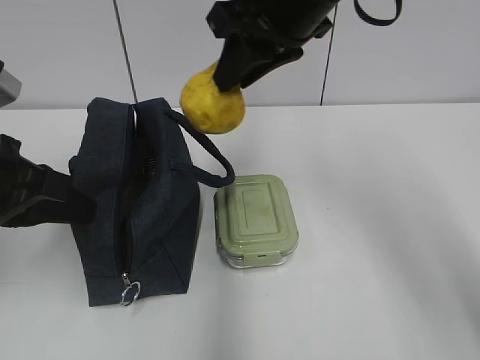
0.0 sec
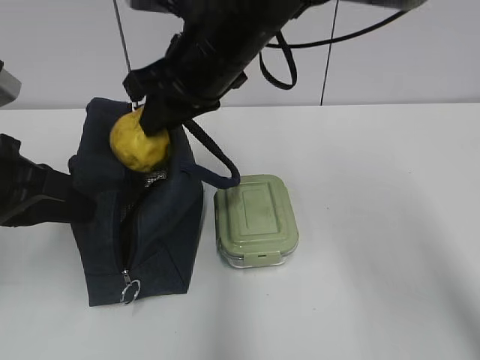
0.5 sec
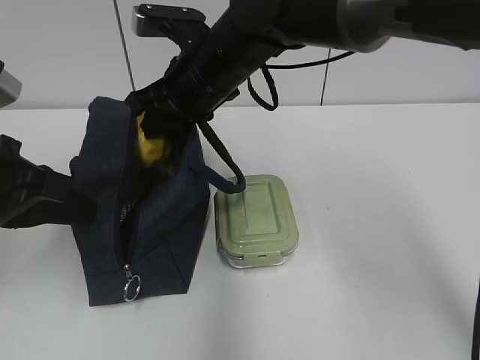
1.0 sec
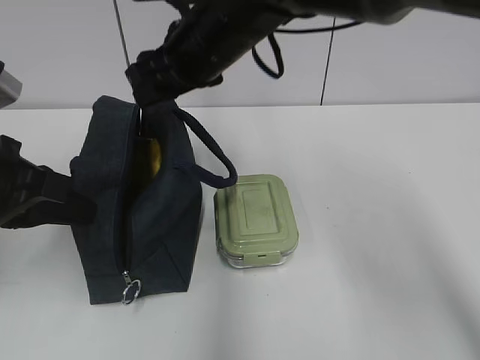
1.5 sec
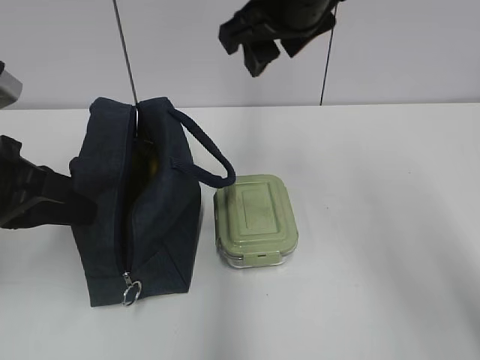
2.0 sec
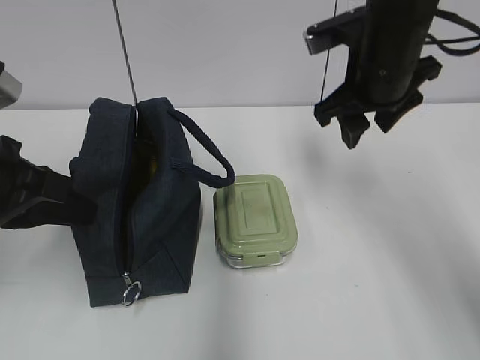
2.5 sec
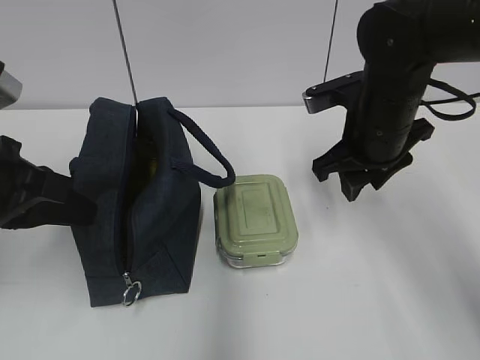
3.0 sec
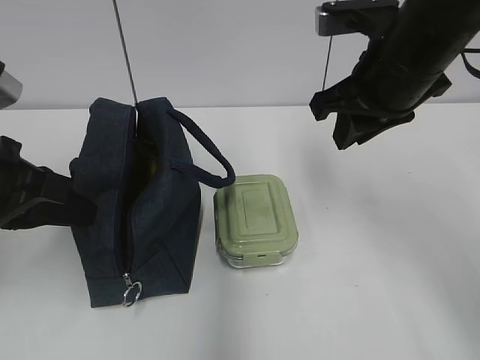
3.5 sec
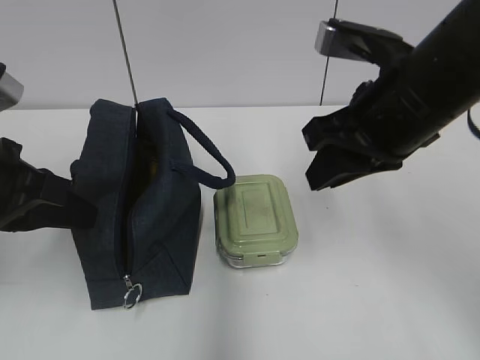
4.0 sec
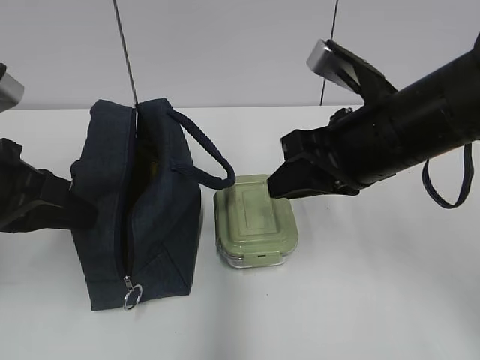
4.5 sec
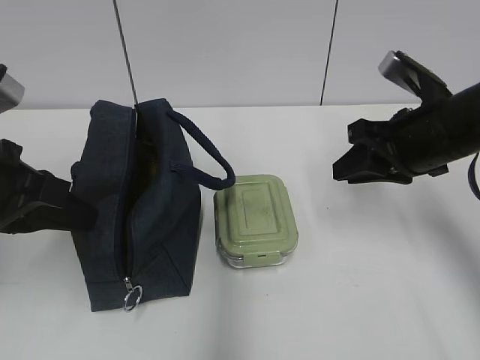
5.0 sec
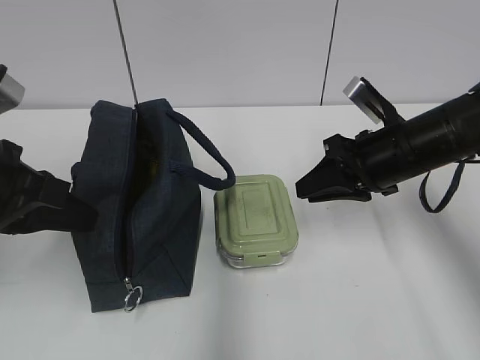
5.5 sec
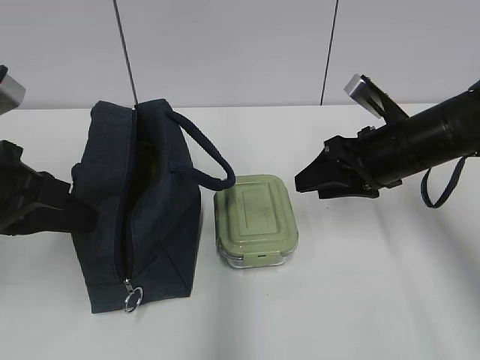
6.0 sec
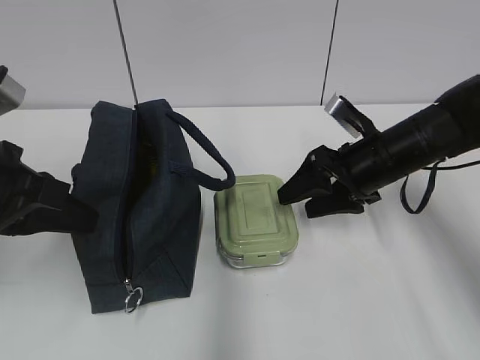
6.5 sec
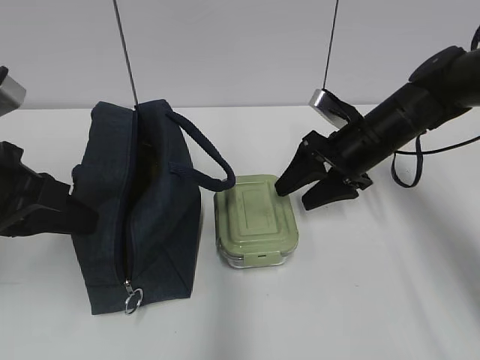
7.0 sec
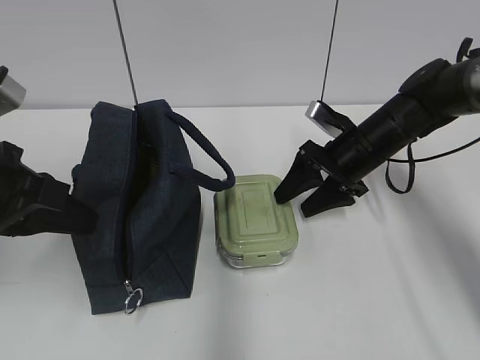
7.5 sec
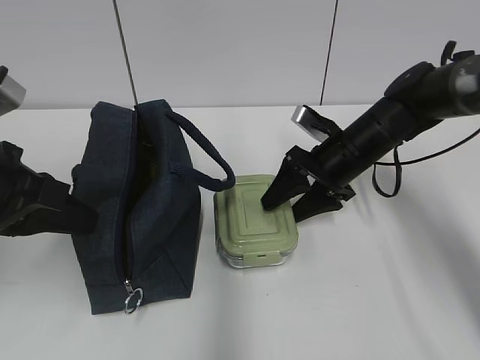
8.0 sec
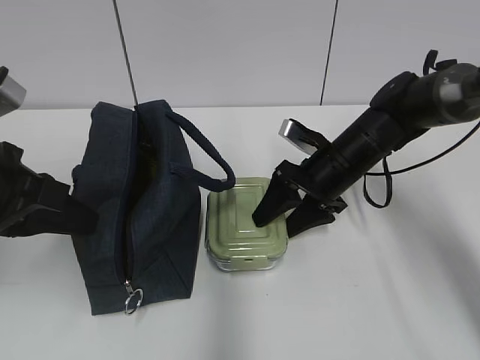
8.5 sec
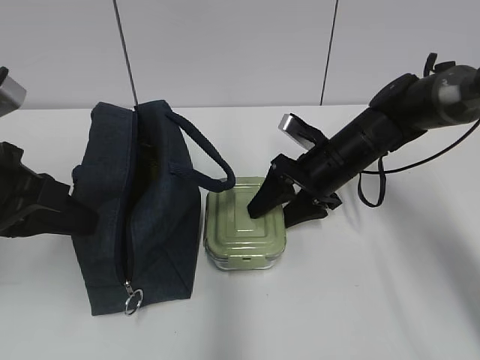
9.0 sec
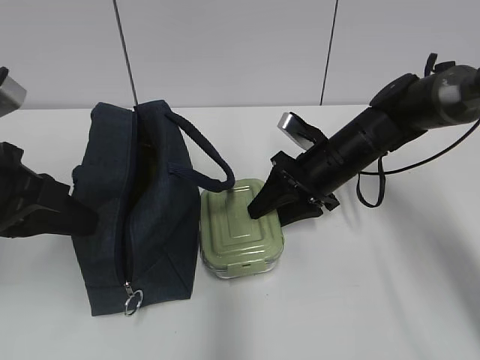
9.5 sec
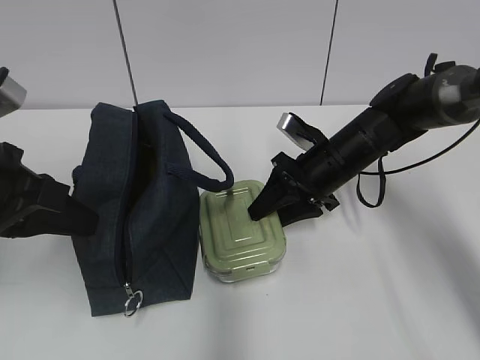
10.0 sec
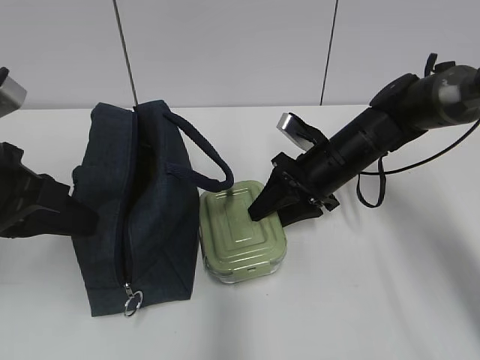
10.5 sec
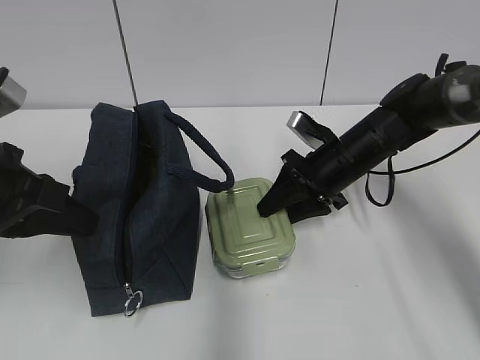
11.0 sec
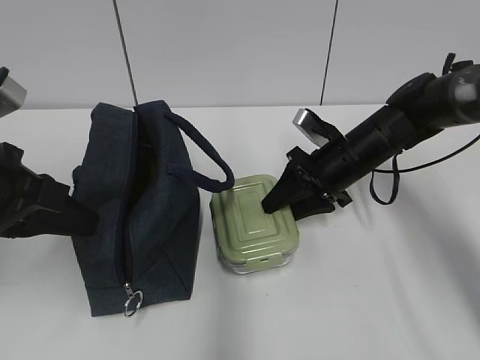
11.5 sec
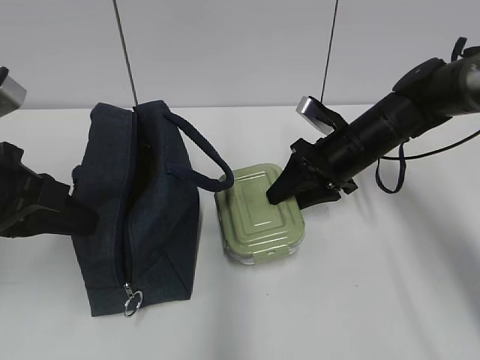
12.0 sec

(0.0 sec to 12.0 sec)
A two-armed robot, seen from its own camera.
0.0 sec - 2.0 sec: The right gripper reaches roughly 10 cm downward, then returns, and opens its fingers.
2.0 sec - 4.0 sec: The right gripper shifts approximately 15 cm backward, downward and to the right, and closes up.
4.0 sec - 6.0 sec: The right gripper is displaced downward, forward and to the right by about 15 cm, and opens.
6.0 sec - 8.0 sec: The right gripper is displaced forward and downward by about 10 cm.
8.0 sec - 12.0 sec: There are only small adjustments of the grippers.

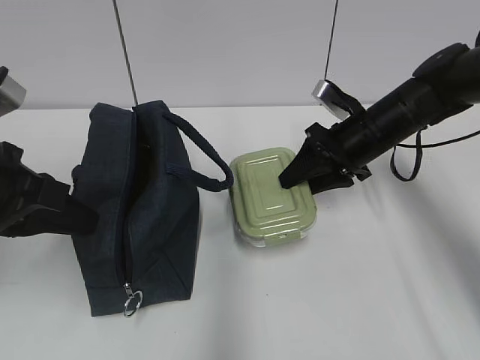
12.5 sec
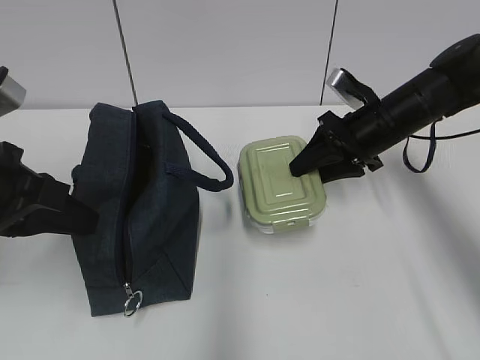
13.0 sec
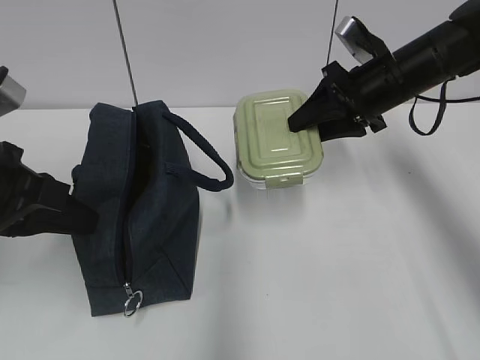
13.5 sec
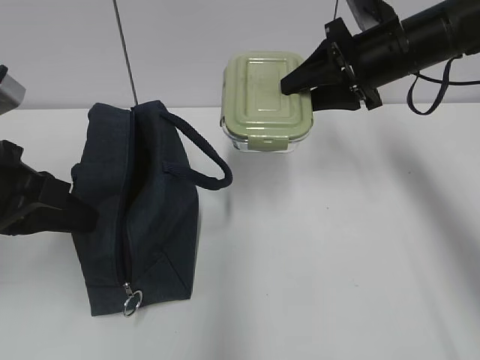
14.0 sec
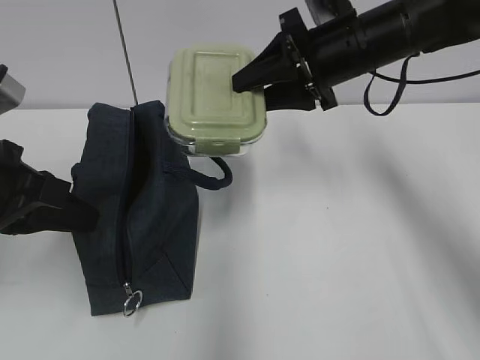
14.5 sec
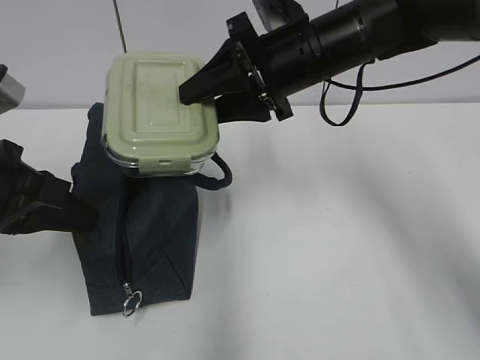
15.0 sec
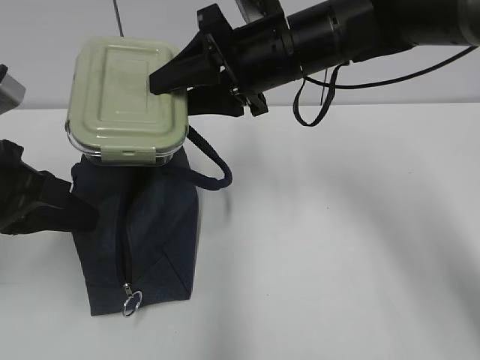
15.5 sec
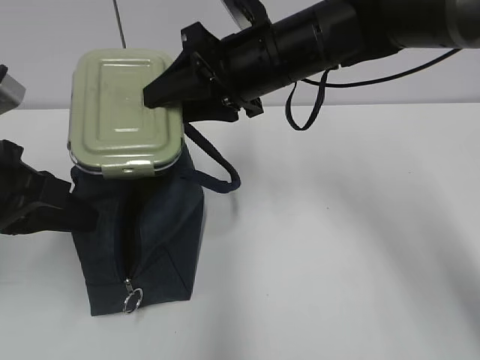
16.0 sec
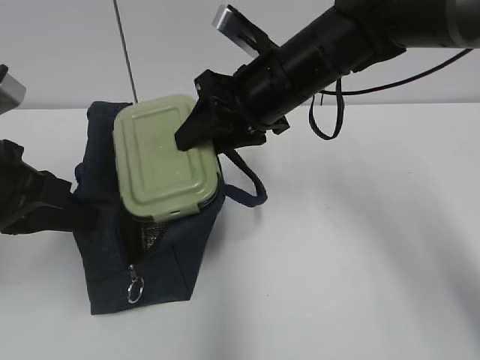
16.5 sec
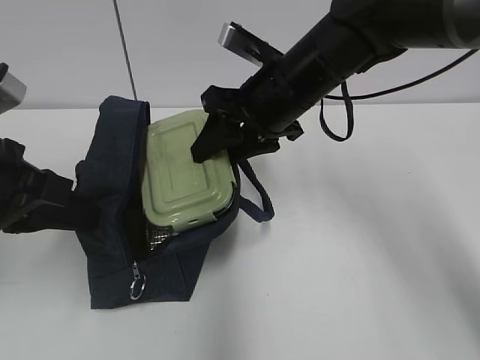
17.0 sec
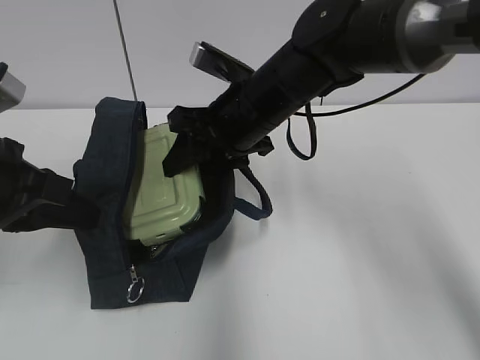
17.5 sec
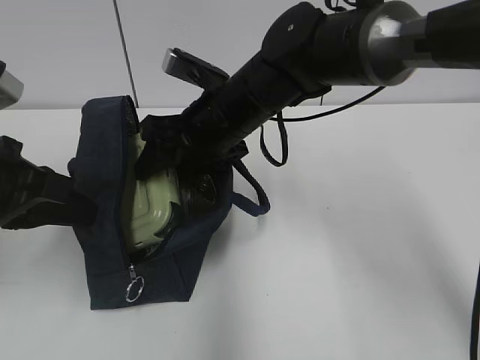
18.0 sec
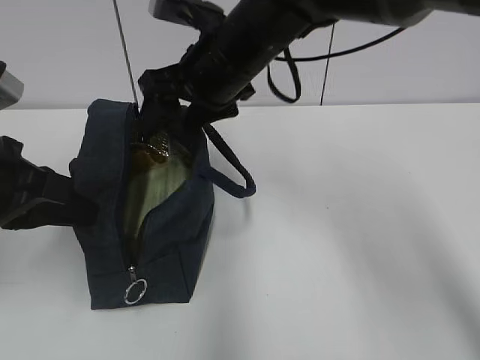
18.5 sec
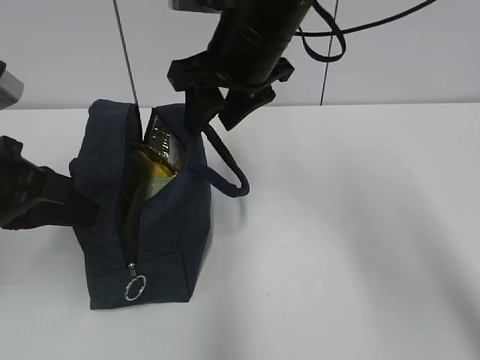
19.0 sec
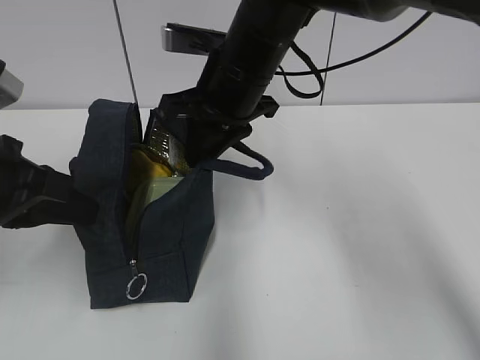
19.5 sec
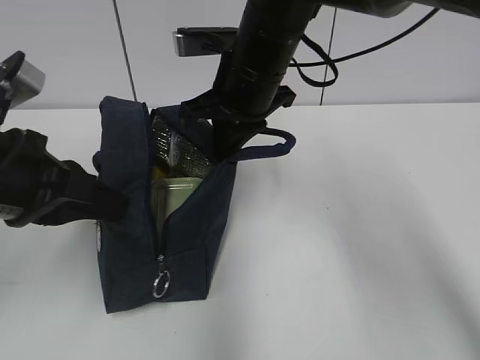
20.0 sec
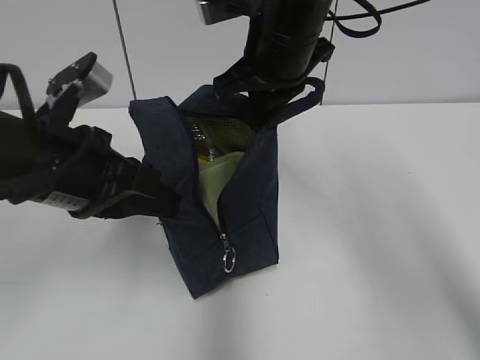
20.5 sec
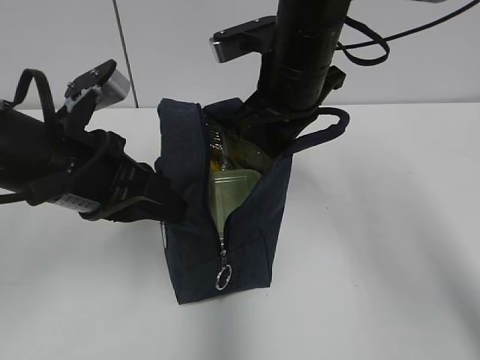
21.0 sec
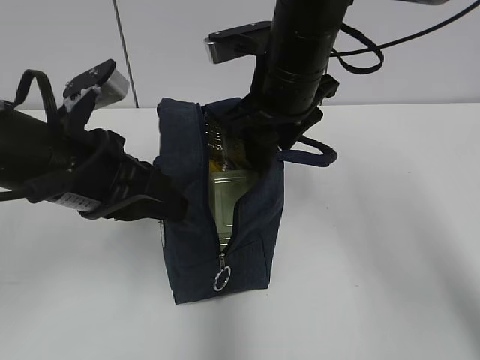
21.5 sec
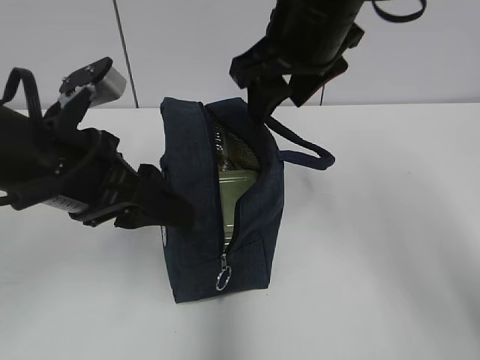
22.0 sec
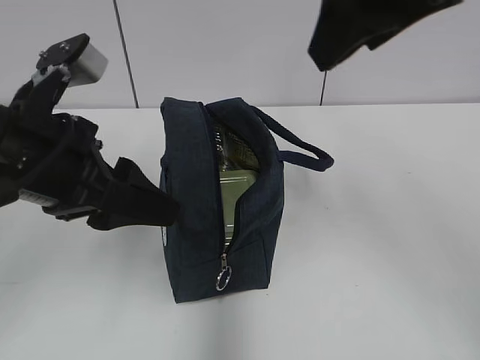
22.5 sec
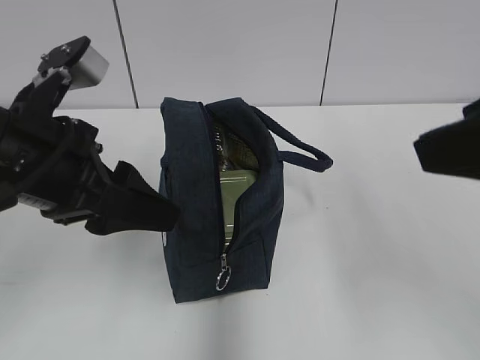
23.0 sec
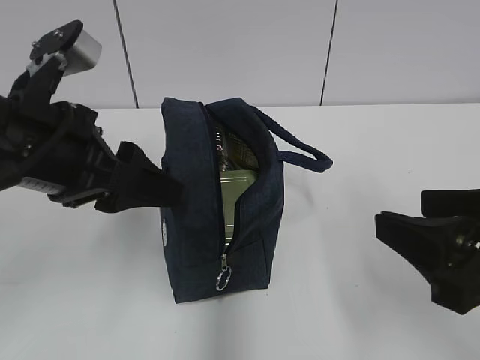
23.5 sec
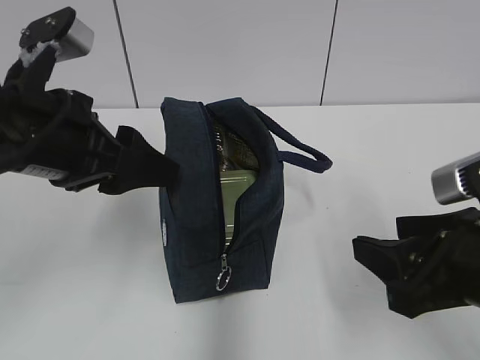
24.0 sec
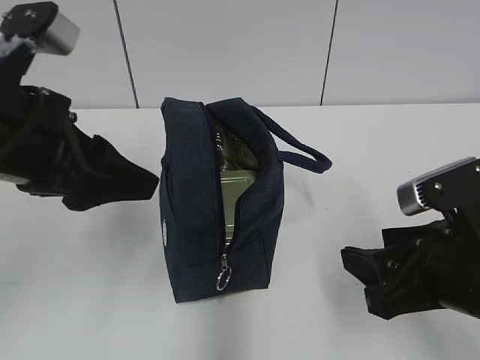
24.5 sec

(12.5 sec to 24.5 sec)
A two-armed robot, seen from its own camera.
12.5 sec - 14.5 sec: The right gripper shifts about 15 cm upward and to the left.
14.5 sec - 16.5 sec: The right gripper shifts about 10 cm to the left.
16.5 sec - 18.5 sec: The right gripper shifts by about 5 cm, and opens.
18.5 sec - 20.5 sec: The right gripper shifts by roughly 5 cm, and closes up; the left gripper is displaced to the right by roughly 5 cm.
20.5 sec - 22.5 sec: The right gripper heads backward, upward and to the right, covering roughly 20 cm, and opens; the left gripper opens up.
22.5 sec - 24.5 sec: The right gripper is displaced downward by about 25 cm.

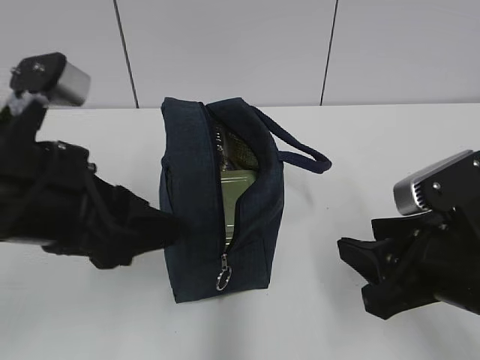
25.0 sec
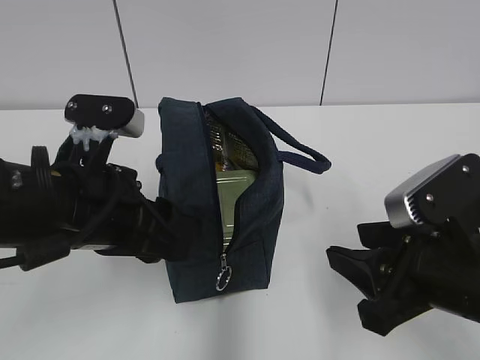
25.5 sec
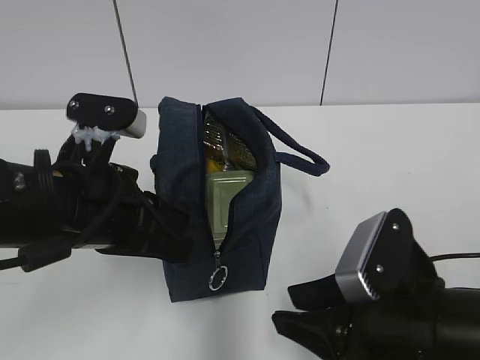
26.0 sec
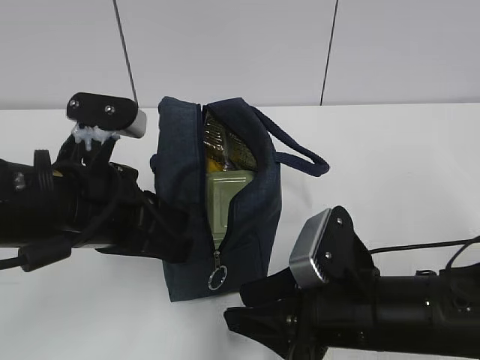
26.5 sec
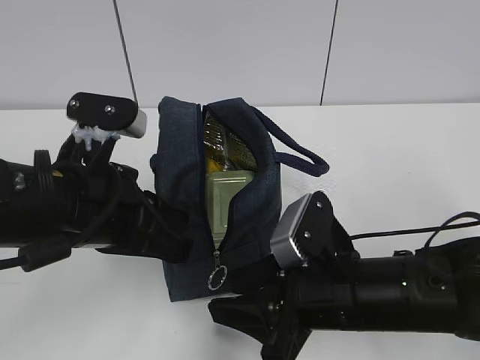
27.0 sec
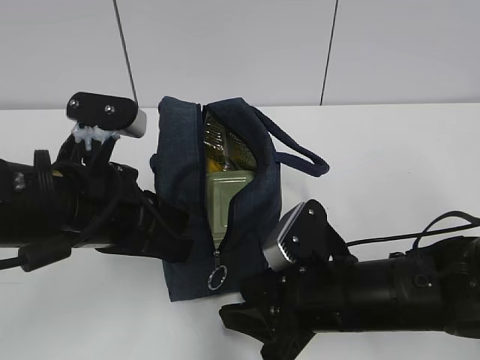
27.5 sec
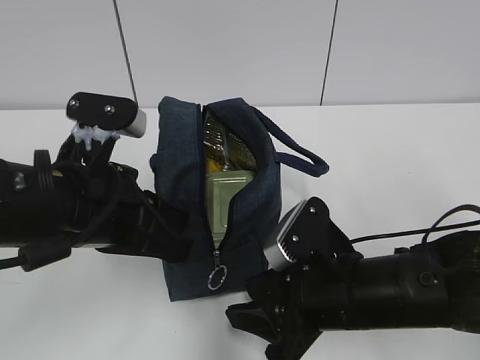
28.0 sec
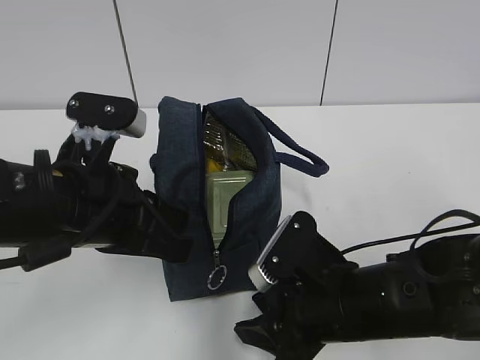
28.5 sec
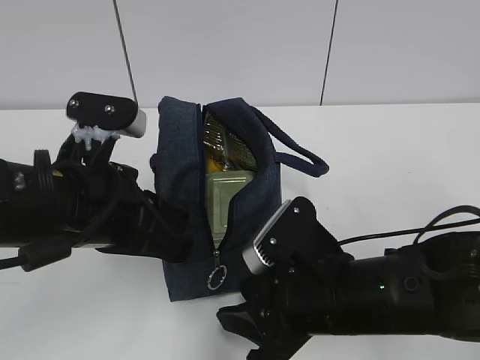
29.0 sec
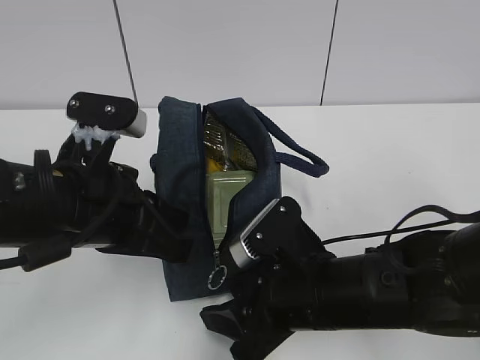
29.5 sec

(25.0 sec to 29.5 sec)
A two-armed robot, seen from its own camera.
25.0 sec - 27.0 sec: The left gripper changes place by roughly 5 cm, and closes up. The right gripper goes some 10 cm to the left and downward.
27.0 sec - 29.5 sec: The grippers move only a little.
